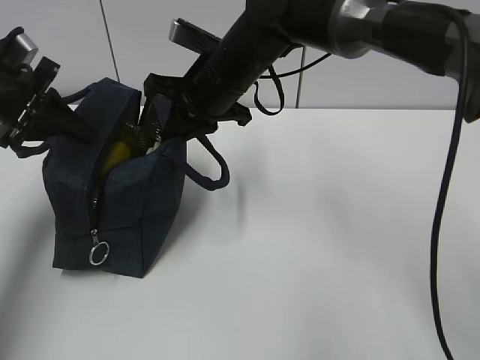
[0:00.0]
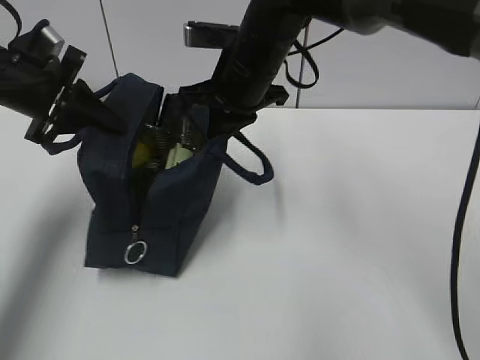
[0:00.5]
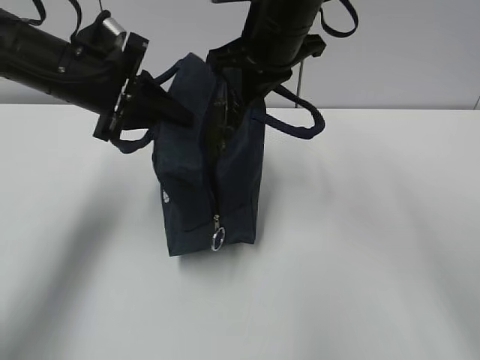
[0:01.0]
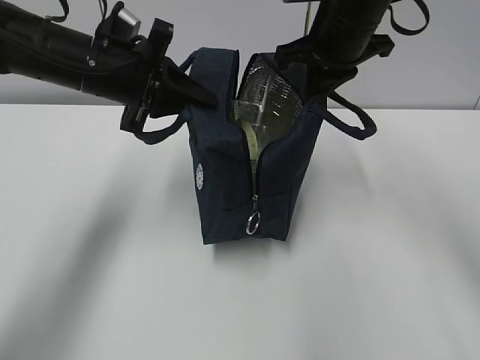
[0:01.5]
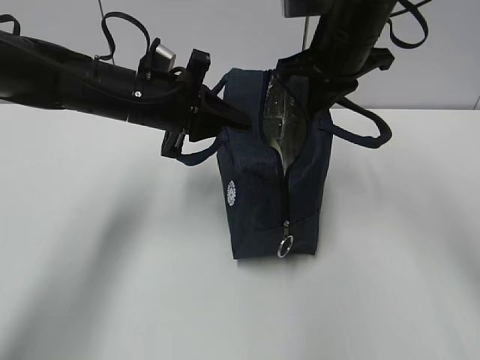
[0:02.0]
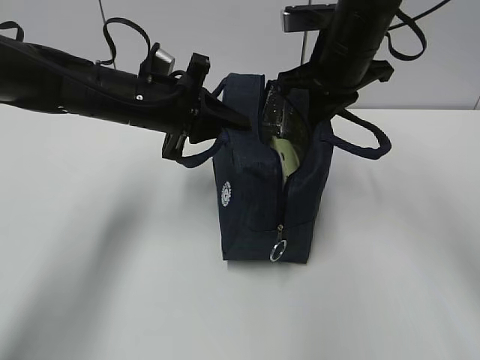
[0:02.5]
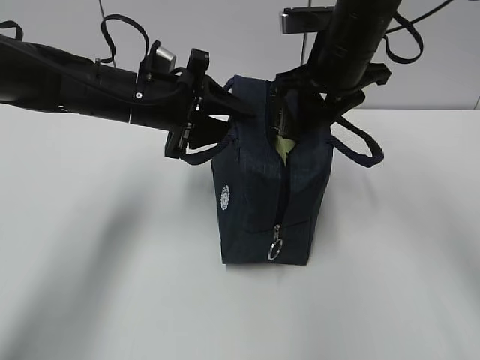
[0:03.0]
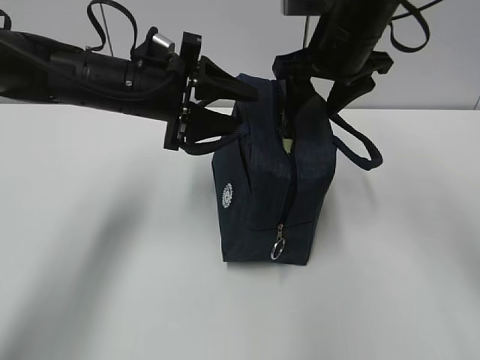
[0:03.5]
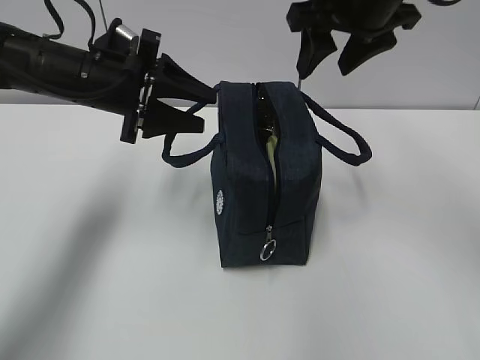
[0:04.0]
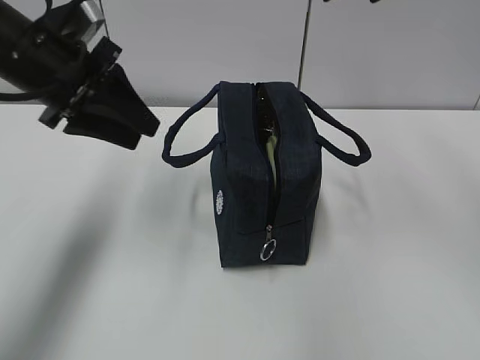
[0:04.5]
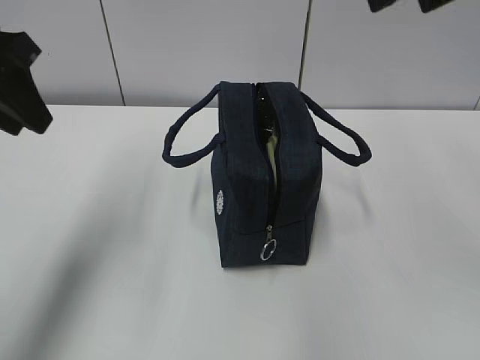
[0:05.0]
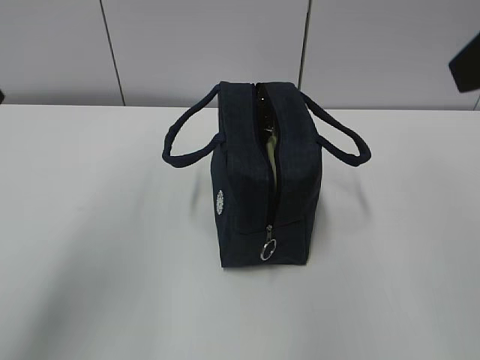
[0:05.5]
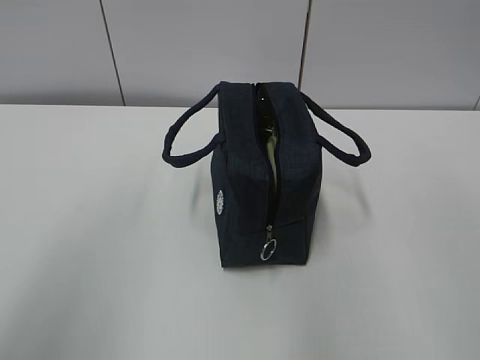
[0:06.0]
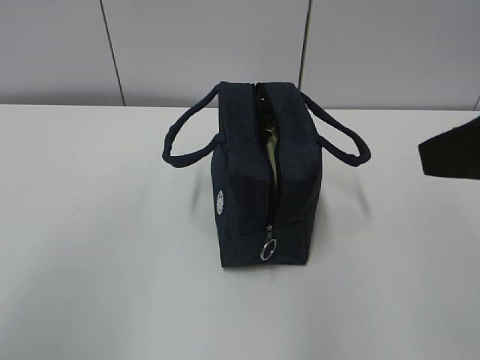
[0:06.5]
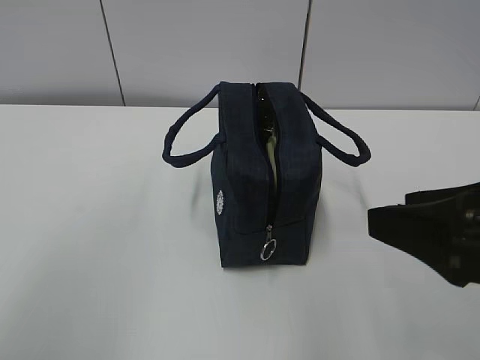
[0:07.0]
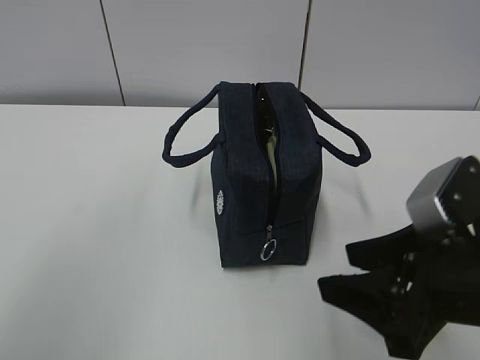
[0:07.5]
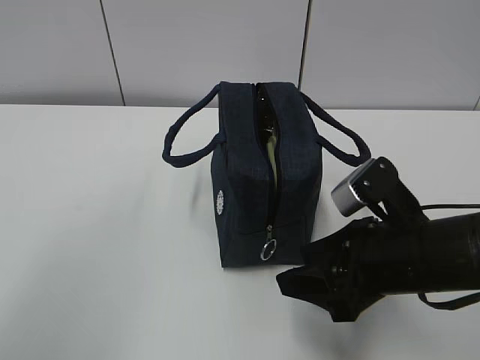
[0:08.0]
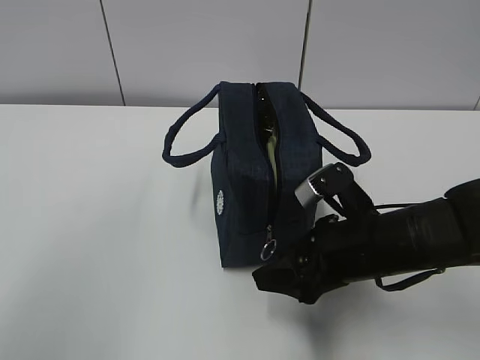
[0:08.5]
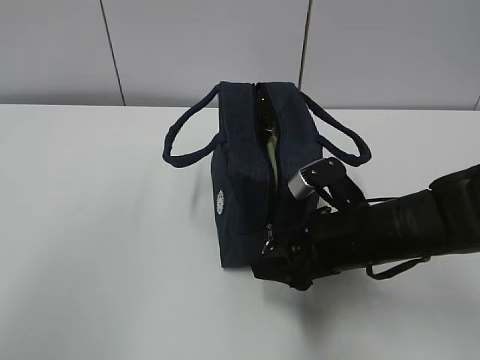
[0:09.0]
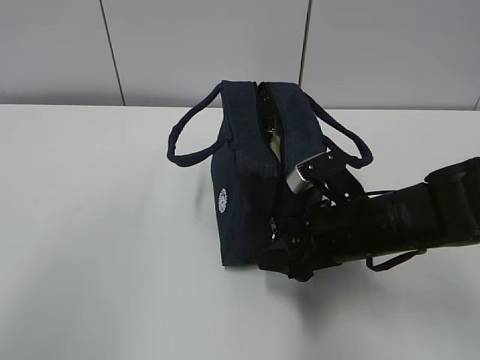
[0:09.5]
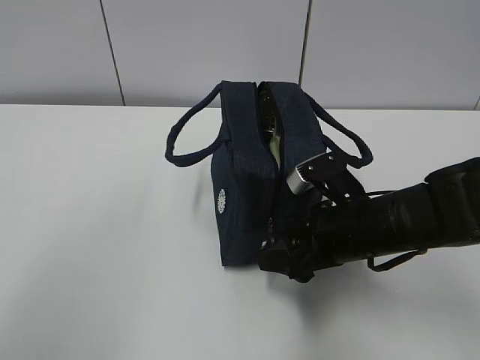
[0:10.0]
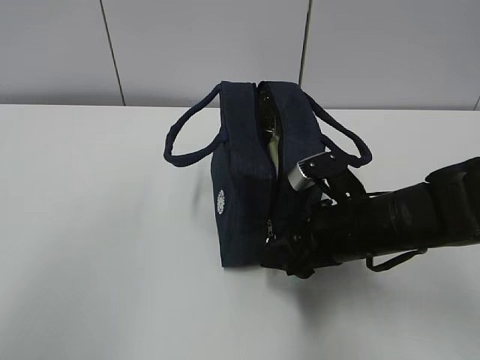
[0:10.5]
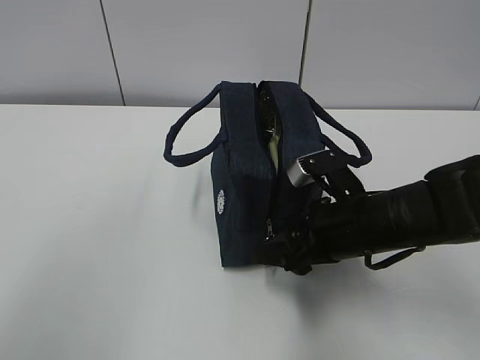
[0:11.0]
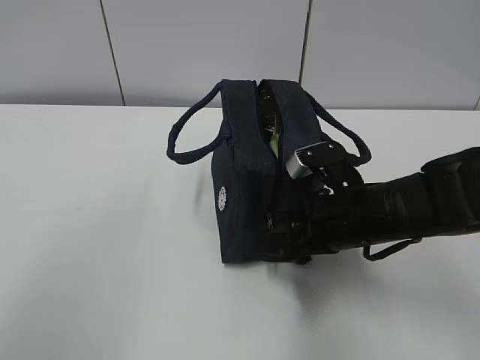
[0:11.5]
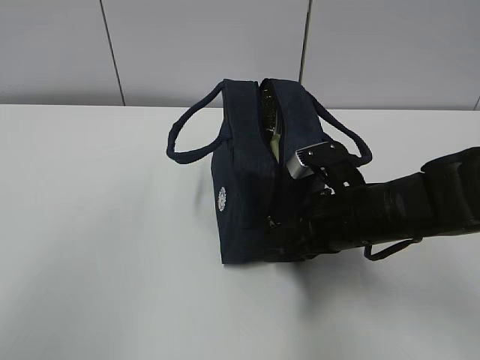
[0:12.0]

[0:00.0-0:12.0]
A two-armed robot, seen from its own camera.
0:00.0 to 0:02.0: Both grippers move to the right, approximately 15 cm.
0:02.0 to 0:04.0: The left gripper moves about 5 cm, and opens; the right gripper is displaced upward by approximately 5 cm, and opens its fingers.
0:04.0 to 0:06.0: The right gripper travels backward by approximately 25 cm; the left gripper heads backward and upward, covering some 30 cm.
0:06.0 to 0:08.0: The right gripper is displaced downward by about 25 cm.
0:08.0 to 0:10.0: The right gripper goes some 5 cm forward.
0:10.0 to 0:12.0: The right gripper closes up.

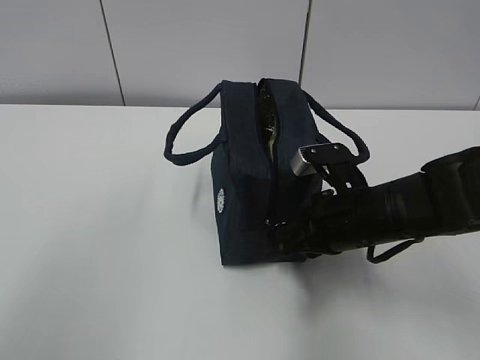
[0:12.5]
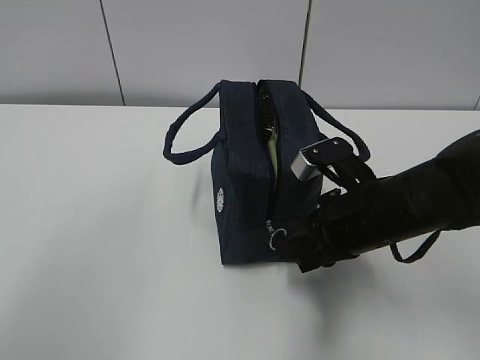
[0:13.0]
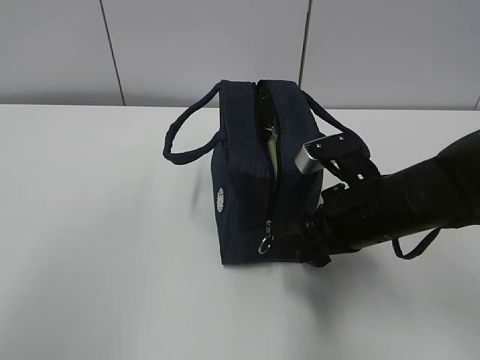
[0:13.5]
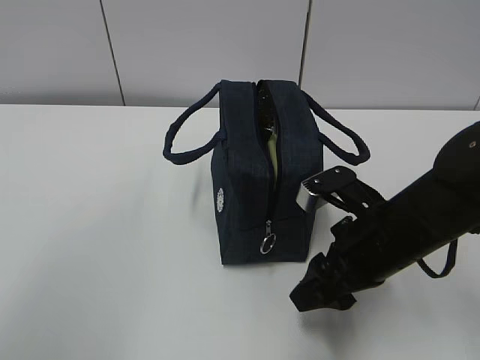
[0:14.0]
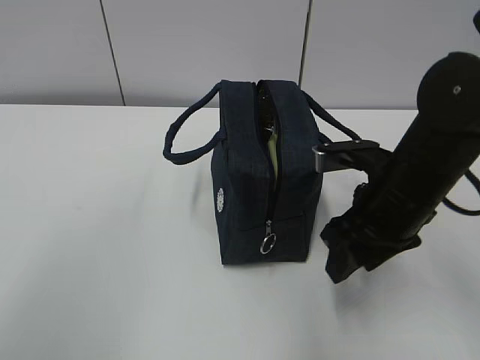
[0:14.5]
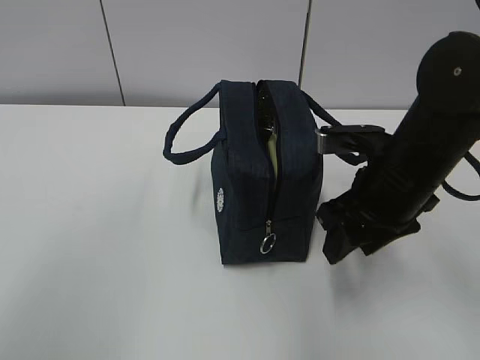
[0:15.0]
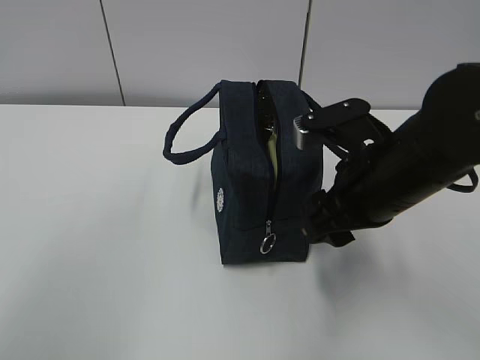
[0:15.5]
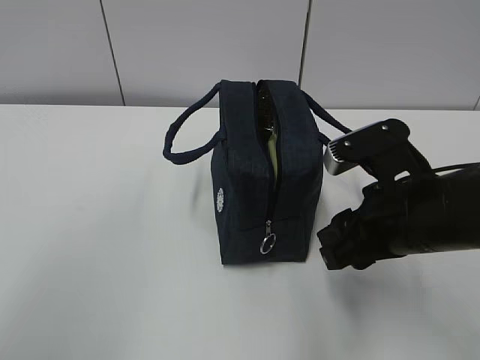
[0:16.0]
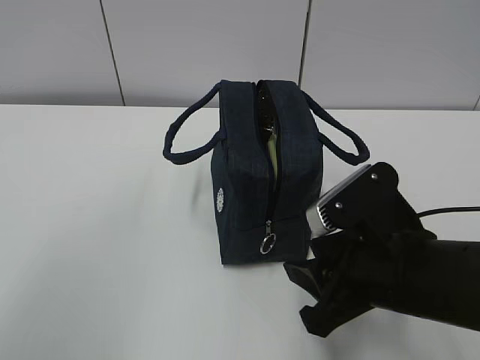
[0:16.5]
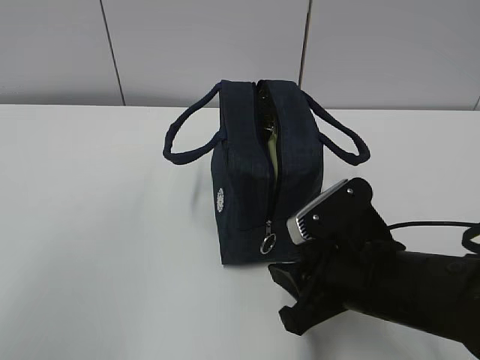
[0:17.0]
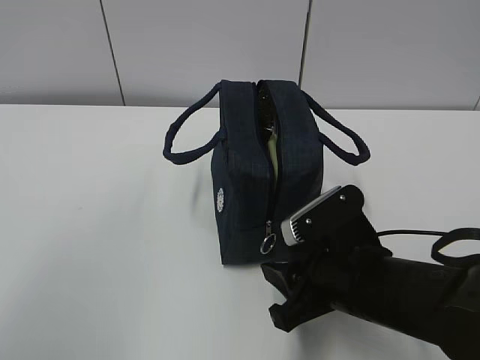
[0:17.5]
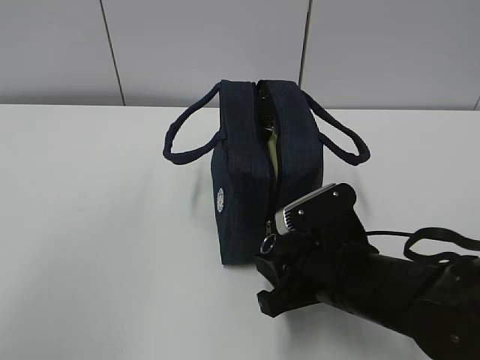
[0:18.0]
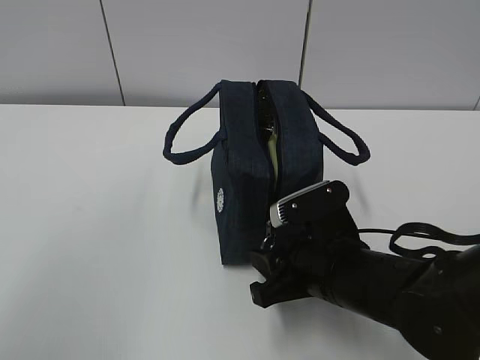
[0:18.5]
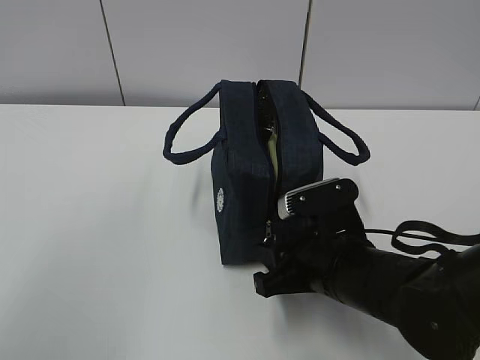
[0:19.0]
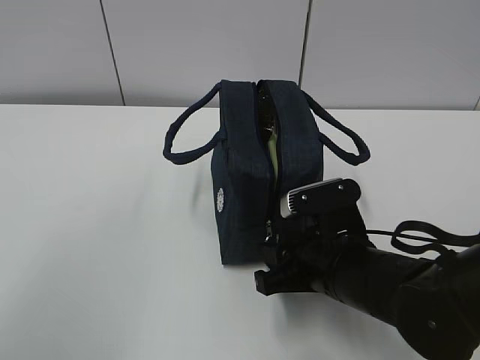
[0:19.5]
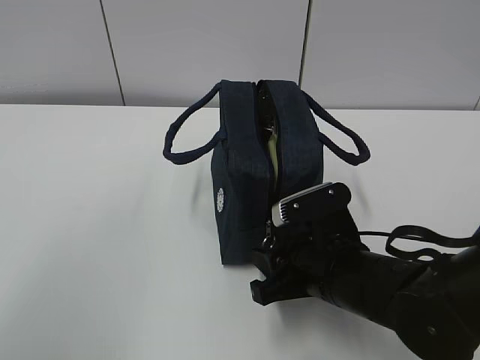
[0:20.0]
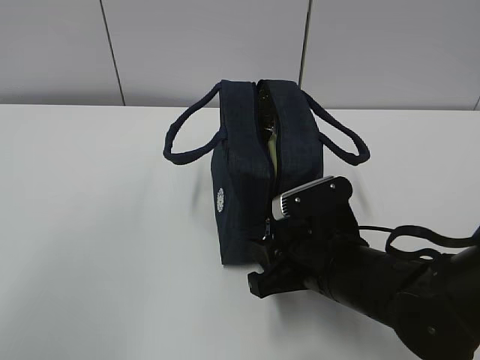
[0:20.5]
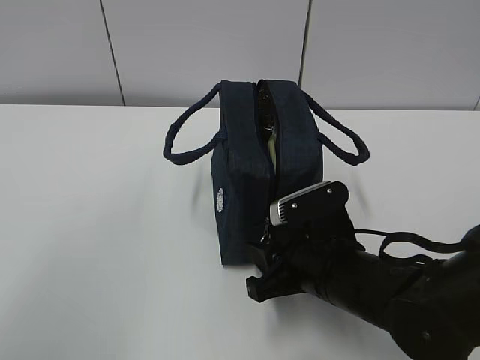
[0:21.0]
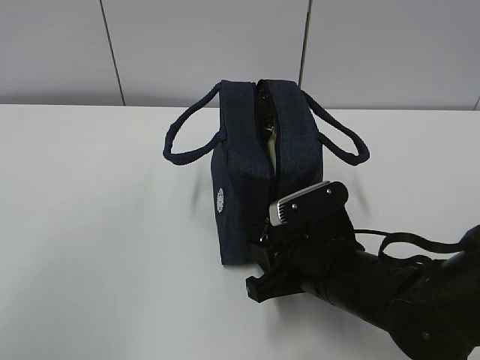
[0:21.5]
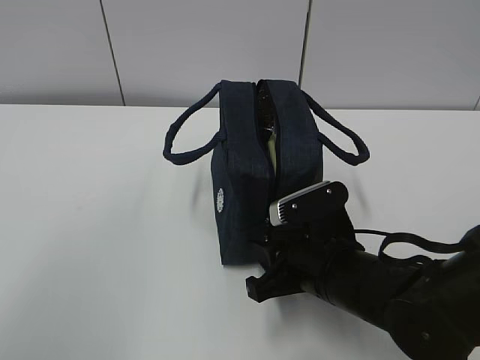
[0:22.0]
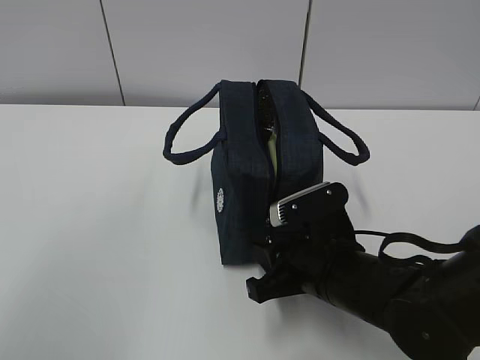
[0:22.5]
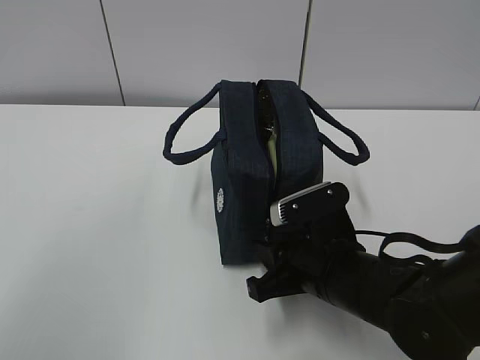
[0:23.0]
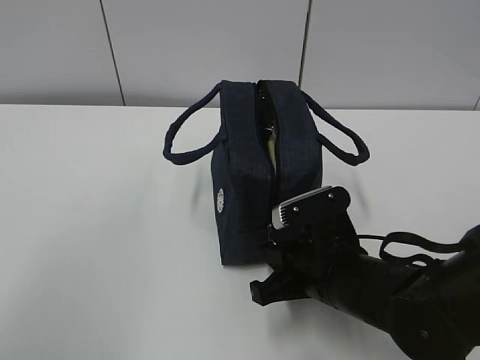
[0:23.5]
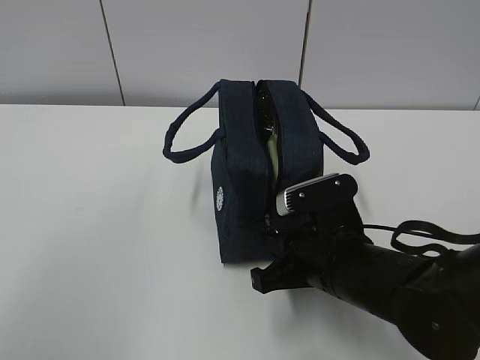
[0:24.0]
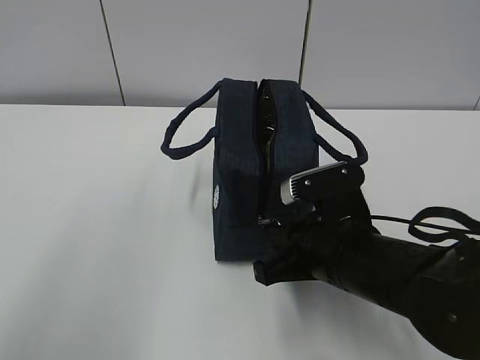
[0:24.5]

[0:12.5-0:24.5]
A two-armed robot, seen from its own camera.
0:12.5 to 0:14.5: The right gripper heads upward, covering some 5 cm, and opens up.
0:14.5 to 0:16.5: The right gripper is displaced backward by roughly 10 cm.
0:16.5 to 0:18.5: The right gripper goes approximately 5 cm downward.
0:18.5 to 0:20.5: The grippers stay close to where they were, moving slightly.
0:20.5 to 0:22.5: Neither gripper changes place.
0:22.5 to 0:24.5: The right gripper closes; the left gripper moves roughly 5 cm.

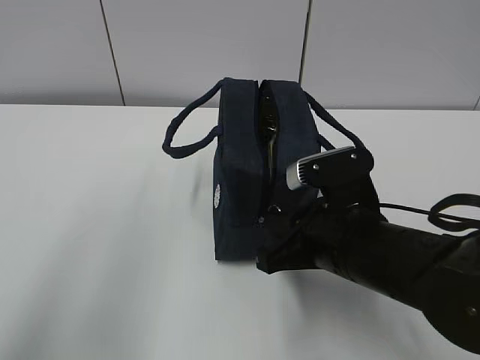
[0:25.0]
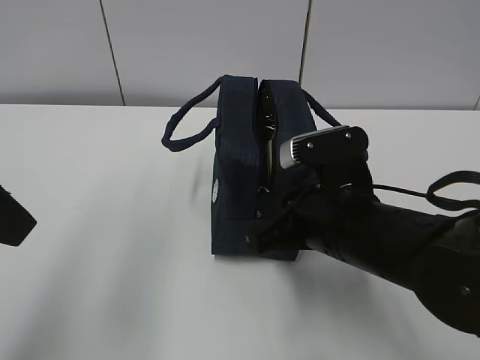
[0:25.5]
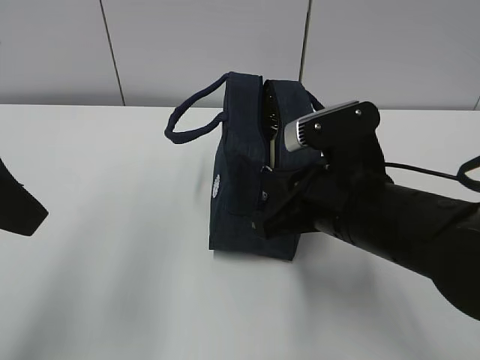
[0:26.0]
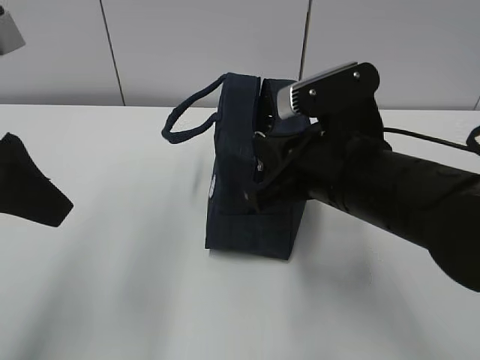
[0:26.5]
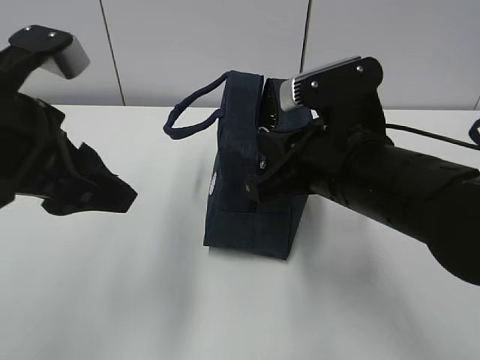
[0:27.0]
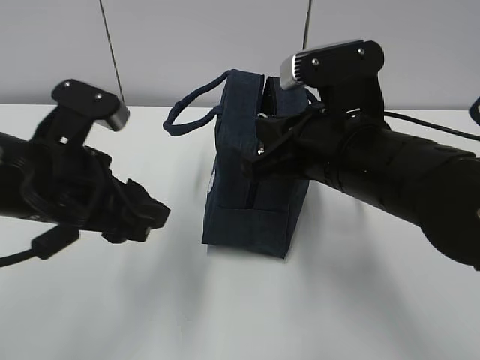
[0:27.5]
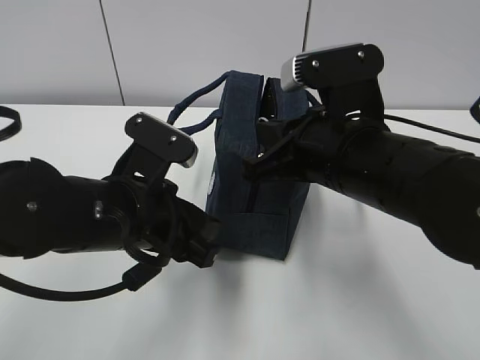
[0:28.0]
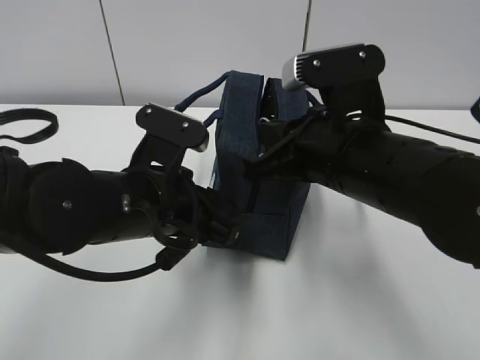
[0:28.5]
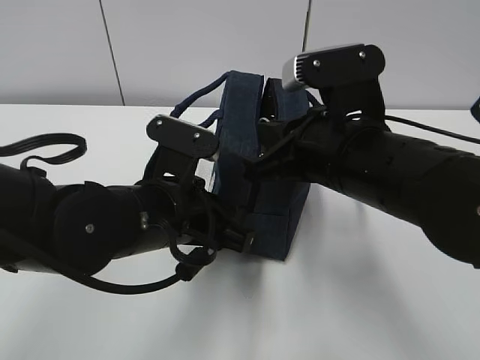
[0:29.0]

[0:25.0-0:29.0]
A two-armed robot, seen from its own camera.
Step, 0:25.0 to 0:27.0: Pull the zipper with your right hand.
Step, 0:28.0 to 0:28.5: Grab the lunch bag with your left hand.
0:25.0 to 0:27.0: The right gripper goes roughly 5 cm upward, while the left gripper goes roughly 10 cm downward, forward and to the right.
0:27.0 to 0:29.0: The left gripper shifts some 15 cm downward and to the right.
